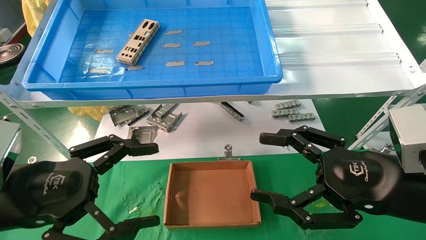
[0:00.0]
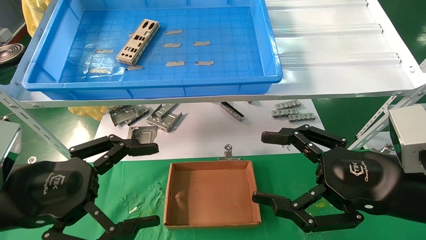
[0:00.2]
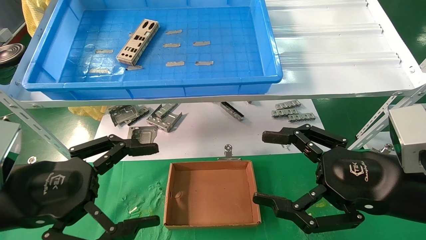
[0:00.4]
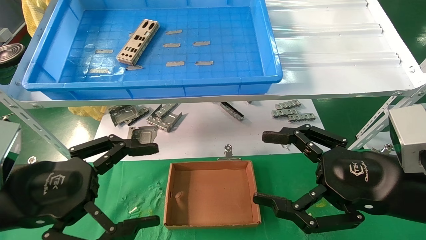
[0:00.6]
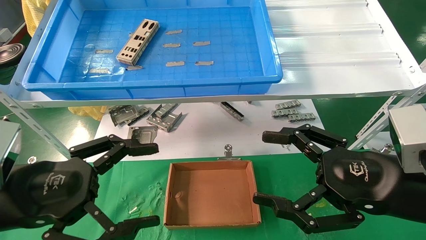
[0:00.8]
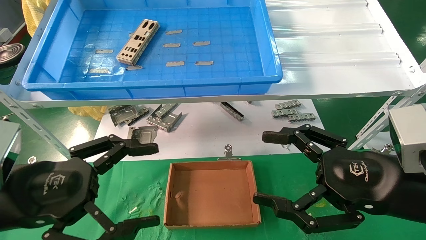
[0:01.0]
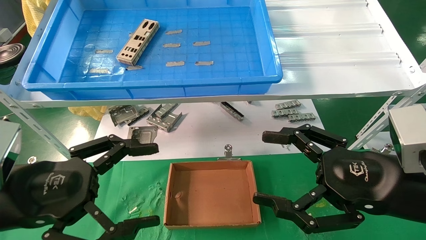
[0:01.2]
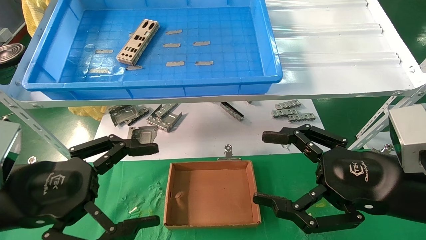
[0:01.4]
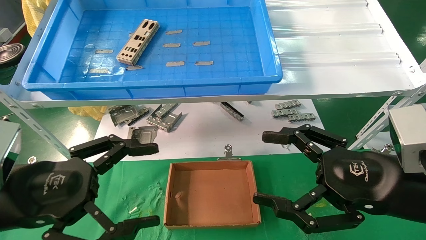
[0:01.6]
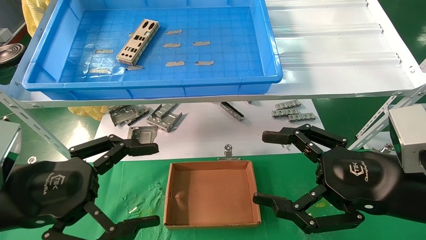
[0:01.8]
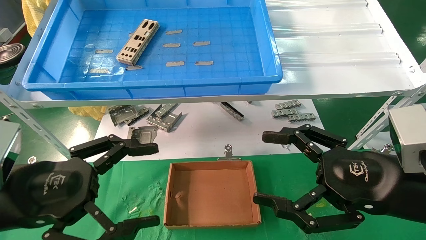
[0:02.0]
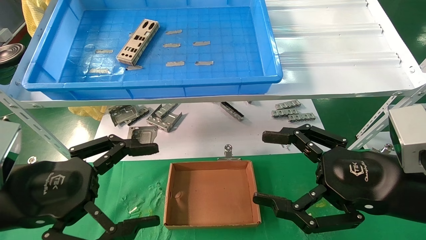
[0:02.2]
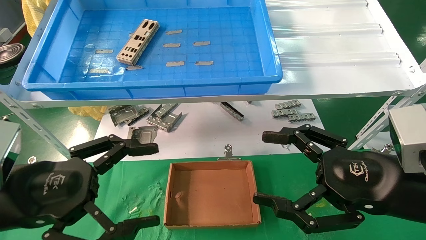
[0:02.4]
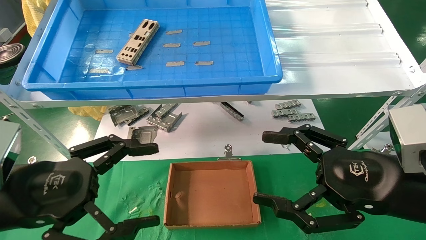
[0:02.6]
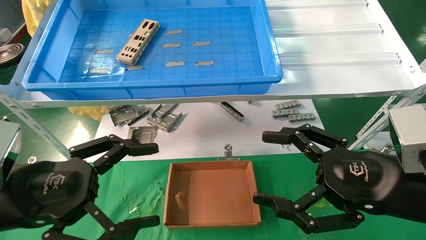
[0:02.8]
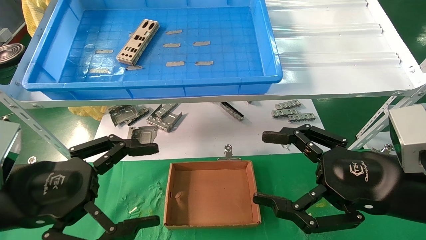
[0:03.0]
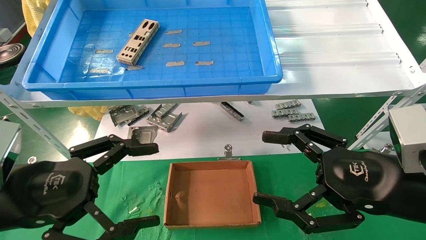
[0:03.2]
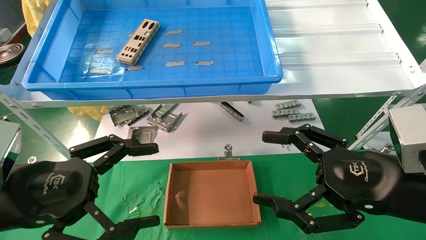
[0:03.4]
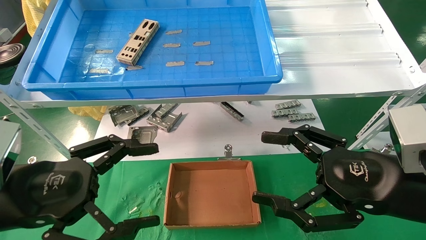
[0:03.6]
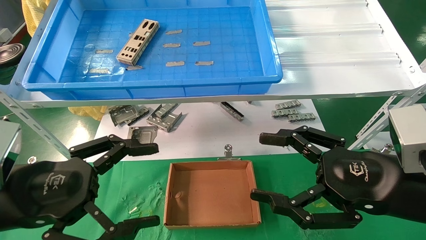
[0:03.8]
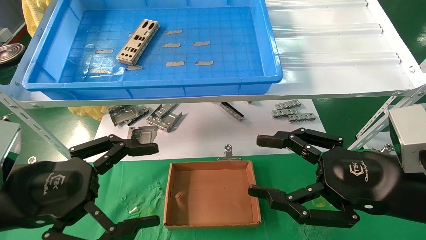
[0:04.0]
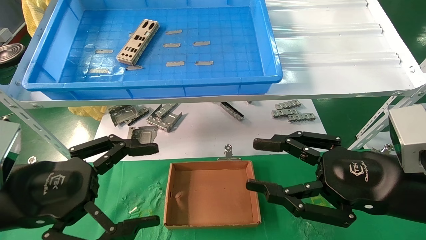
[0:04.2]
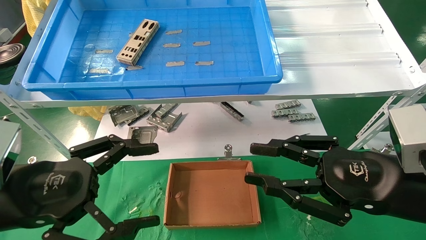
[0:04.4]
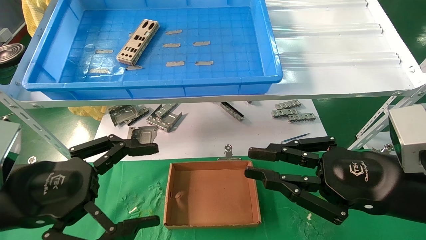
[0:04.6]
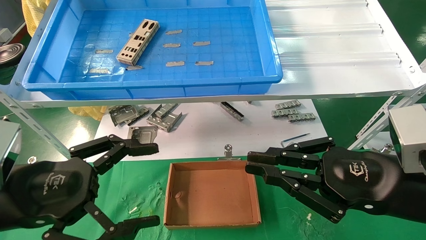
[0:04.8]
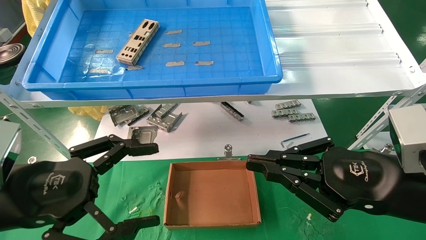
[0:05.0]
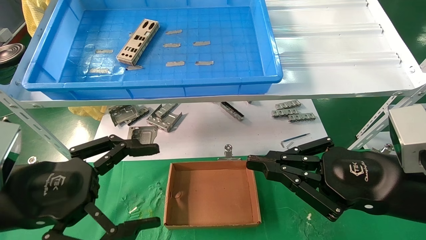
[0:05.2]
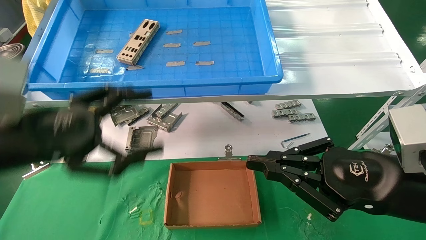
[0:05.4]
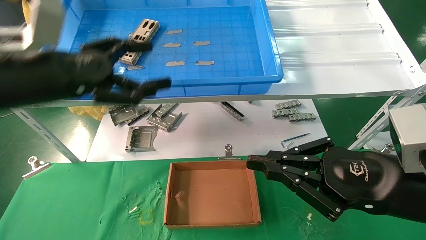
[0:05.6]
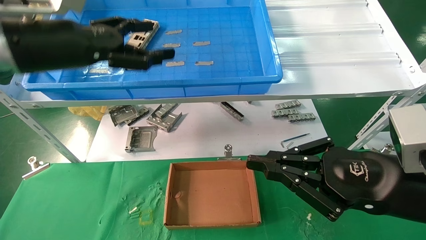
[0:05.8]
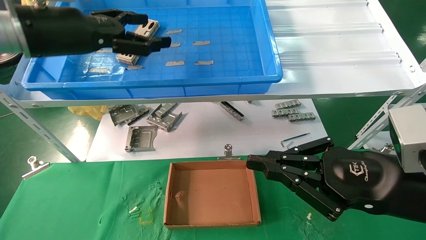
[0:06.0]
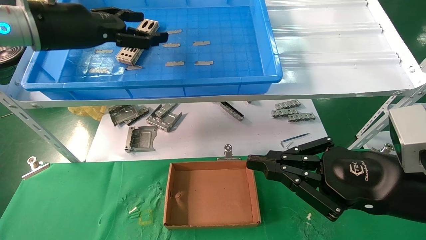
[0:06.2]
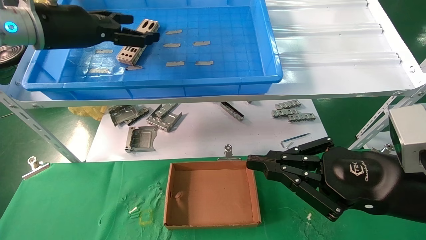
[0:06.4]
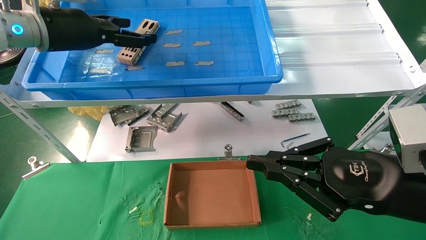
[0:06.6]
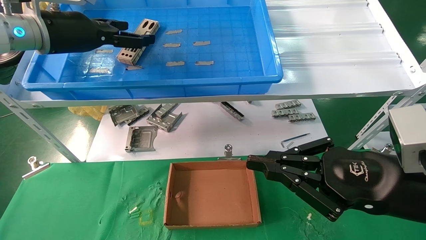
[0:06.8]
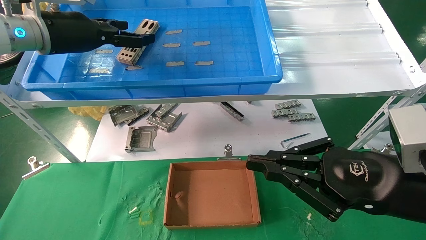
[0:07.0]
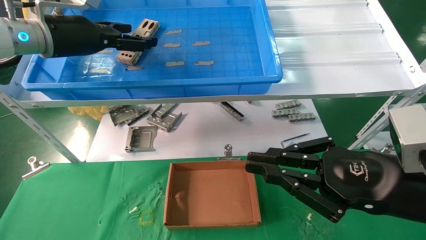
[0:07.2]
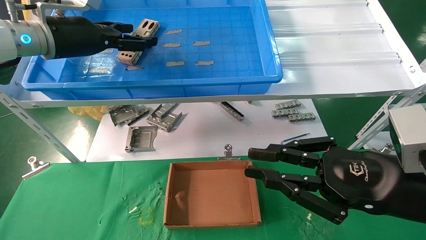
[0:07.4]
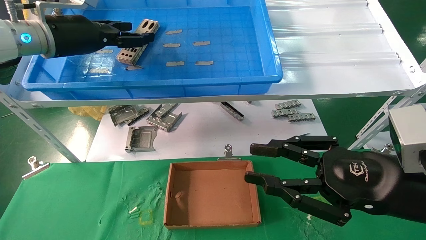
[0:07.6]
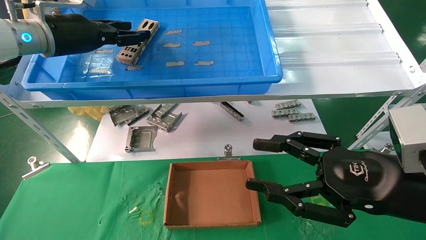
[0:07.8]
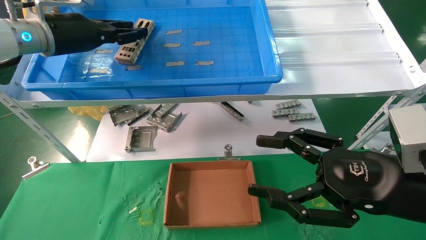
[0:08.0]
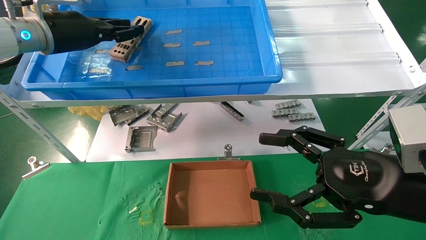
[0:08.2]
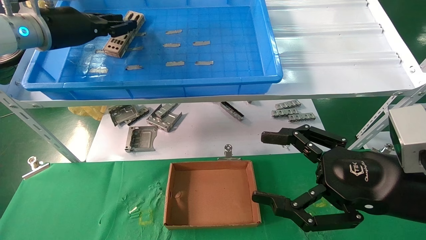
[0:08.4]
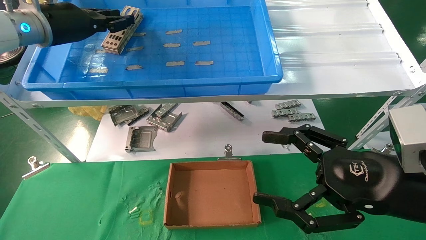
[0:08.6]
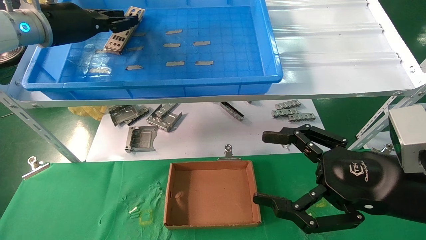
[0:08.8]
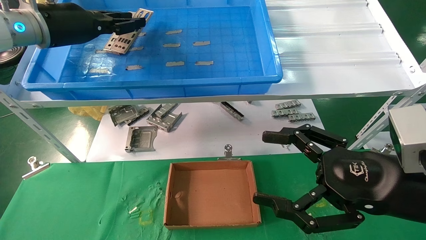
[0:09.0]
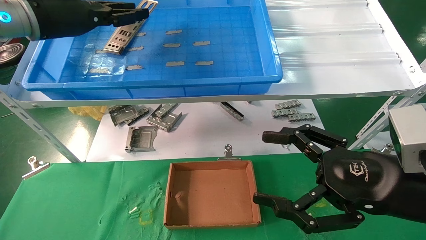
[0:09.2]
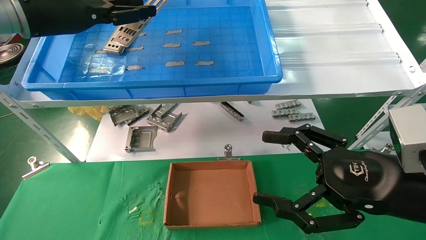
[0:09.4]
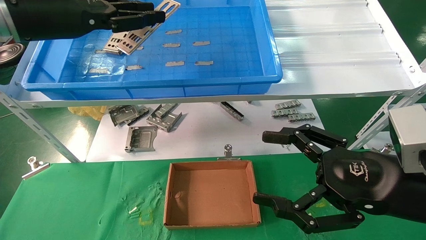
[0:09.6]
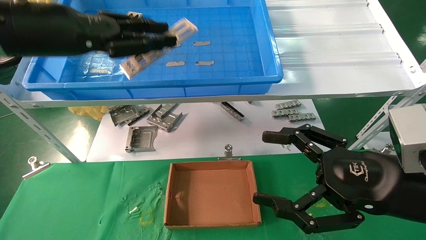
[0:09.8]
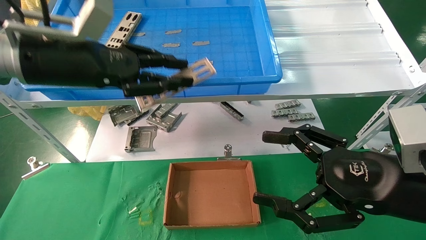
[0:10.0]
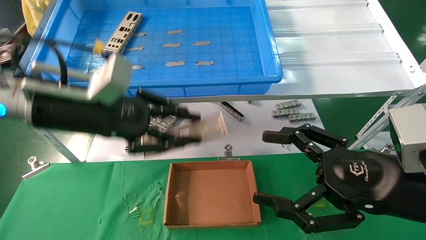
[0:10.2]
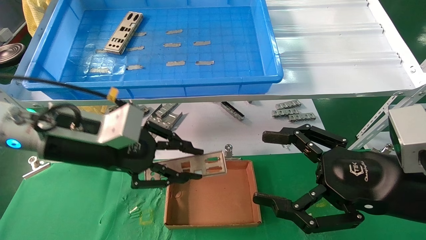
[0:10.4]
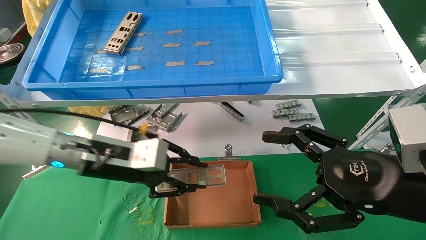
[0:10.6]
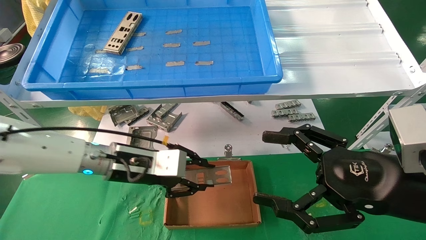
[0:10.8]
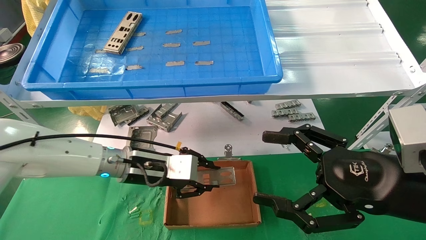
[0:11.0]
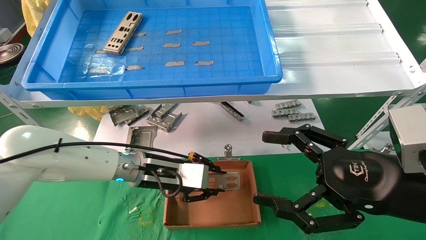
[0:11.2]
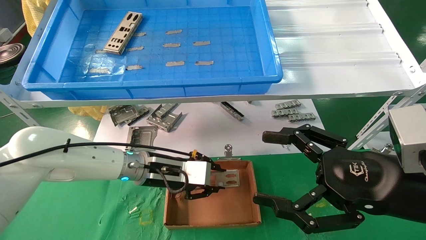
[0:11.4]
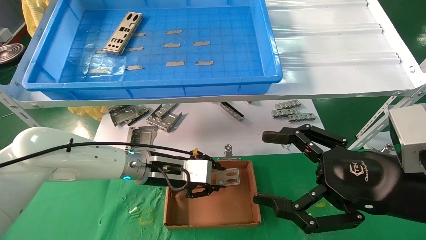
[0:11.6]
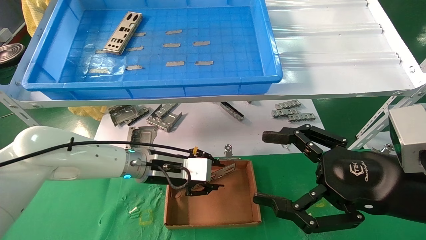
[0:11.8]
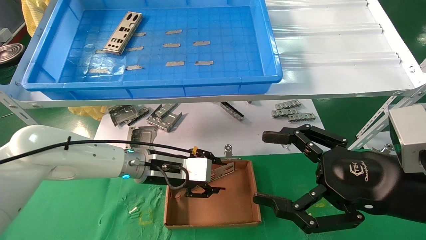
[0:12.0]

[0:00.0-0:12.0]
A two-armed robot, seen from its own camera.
Task of the whole recording: pick up the parts on the tray and put them in the cardboard box.
Step, 0:05.6 to 0:08.2: Pick up the IO bracket from the container box.
Step, 0:08.4 to 0:12.0: Place the IO bracket into the ingredient slot.
0:00.0 to 0:03.0: Neither gripper changes place.
0:03.0 to 0:04.4: The right gripper closes its fingers.
0:04.4 to 0:06.0: The right gripper closes. The left gripper heads upward and forward, covering about 25 cm.
0:06.0 to 0:07.6: The left gripper travels forward by roughly 5 cm.
0:07.6 to 0:09.0: The right gripper opens; the left gripper closes up.
0:09.0 to 0:10.4: The left gripper goes roughly 20 cm downward, backward and to the right.
0:10.4 to 0:12.0: The left gripper shifts about 15 cm downward, to the right and forward.

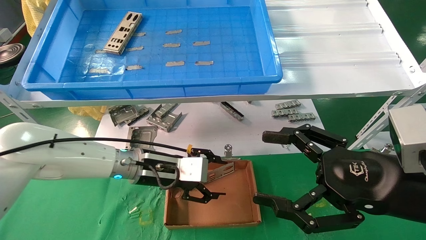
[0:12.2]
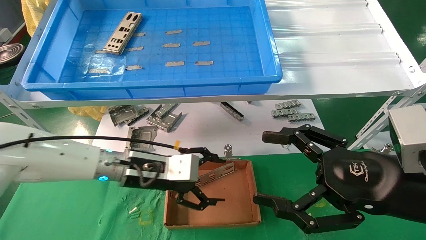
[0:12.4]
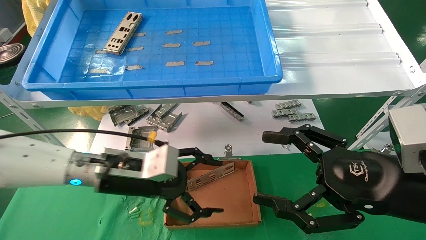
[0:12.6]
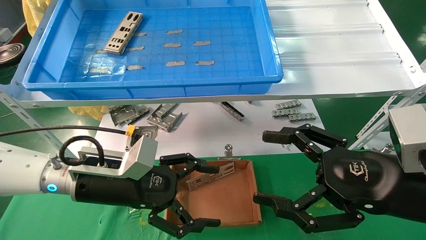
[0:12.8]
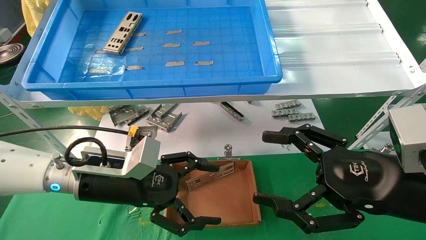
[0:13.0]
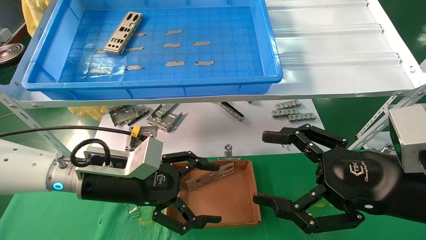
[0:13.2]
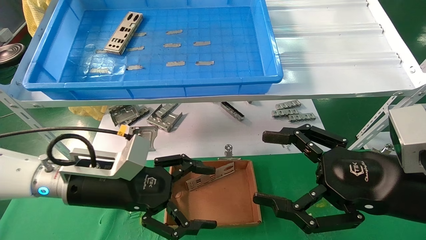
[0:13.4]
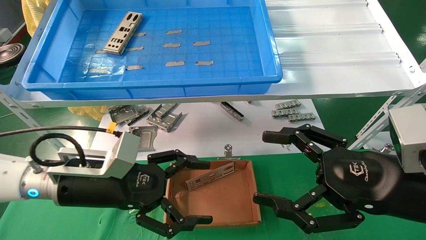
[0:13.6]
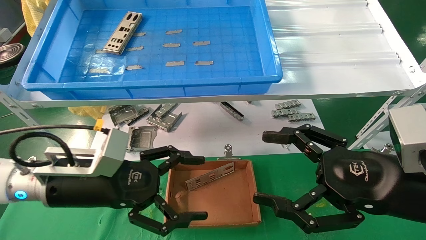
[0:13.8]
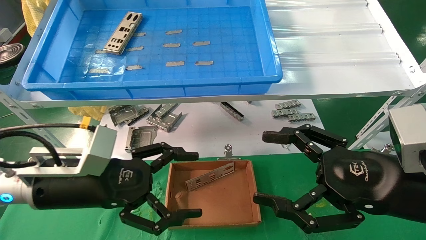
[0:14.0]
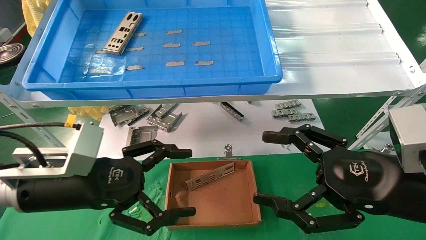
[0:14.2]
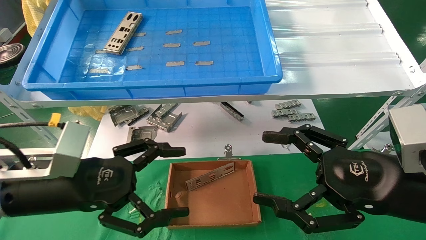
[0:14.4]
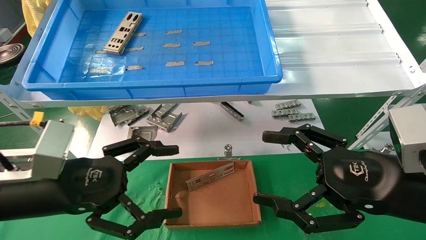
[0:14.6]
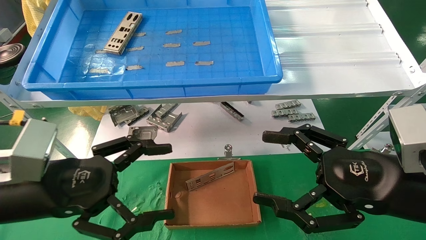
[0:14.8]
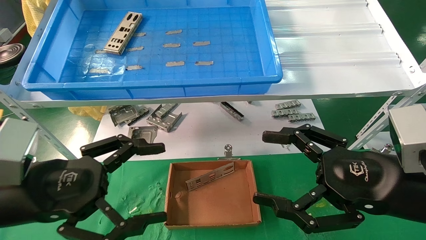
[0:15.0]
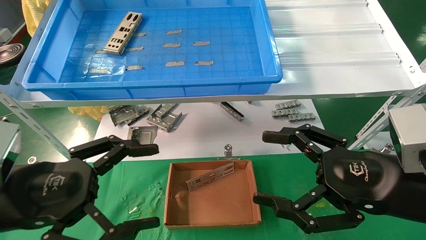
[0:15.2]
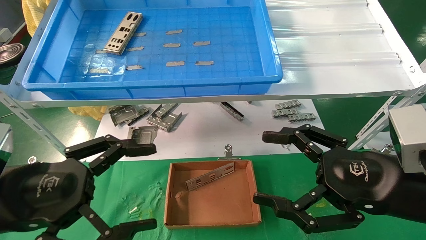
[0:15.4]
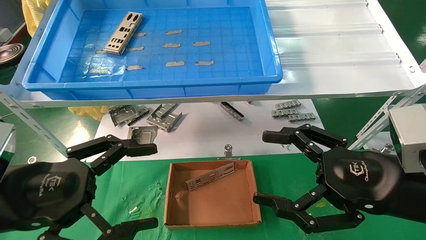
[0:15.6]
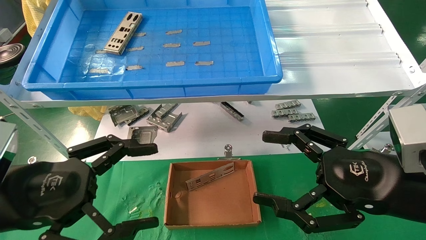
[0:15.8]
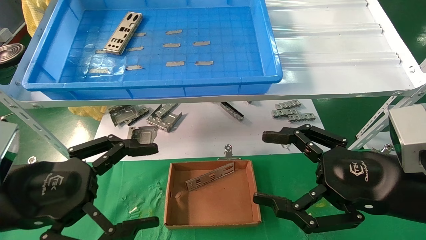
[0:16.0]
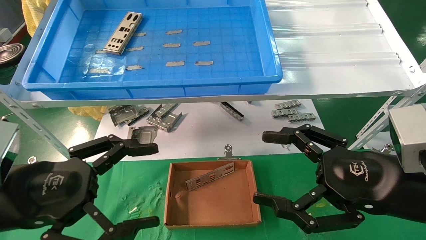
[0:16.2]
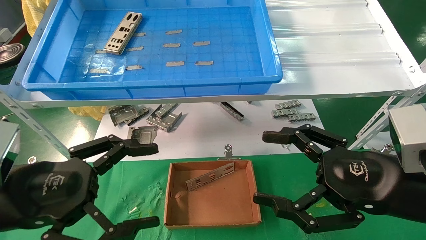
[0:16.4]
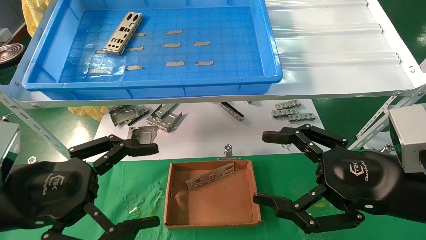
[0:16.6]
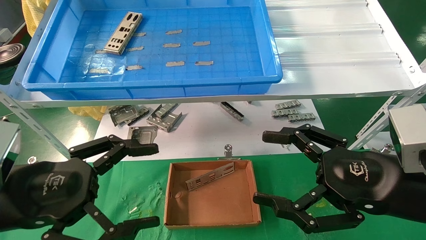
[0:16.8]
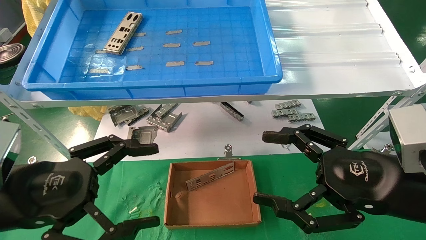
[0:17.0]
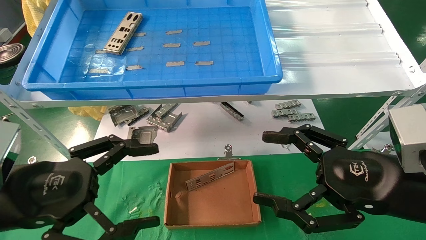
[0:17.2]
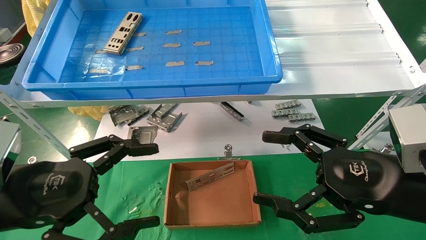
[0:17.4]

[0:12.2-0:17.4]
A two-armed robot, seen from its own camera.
Task of the whole recording: pick up the parts on the tray and put them in the cardboard box.
0:12.2 to 0:14.0: The left gripper moves backward and to the left, some 15 cm, and opens.
0:14.0 to 0:15.6: The left gripper moves backward and to the left, approximately 10 cm.
0:15.6 to 0:17.4: The two grippers keep their place.
